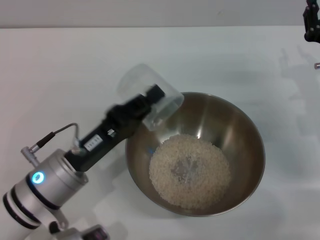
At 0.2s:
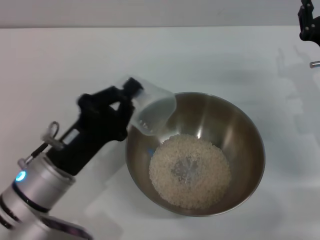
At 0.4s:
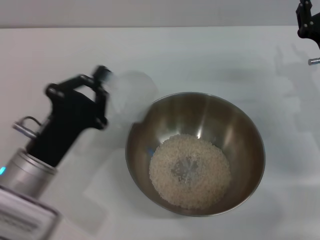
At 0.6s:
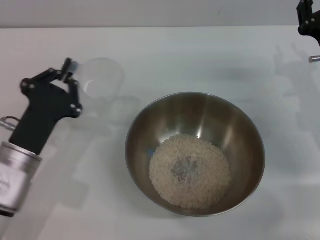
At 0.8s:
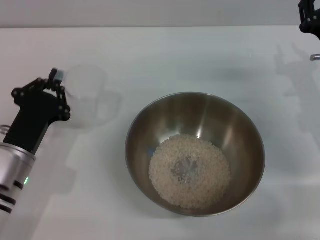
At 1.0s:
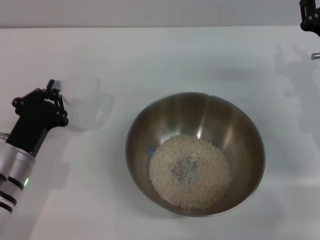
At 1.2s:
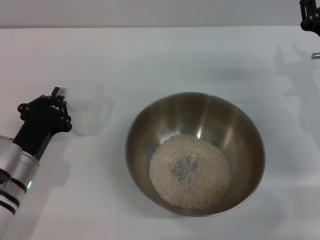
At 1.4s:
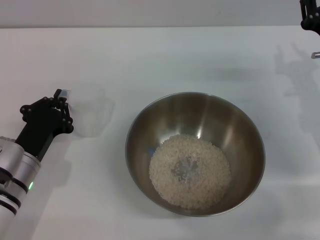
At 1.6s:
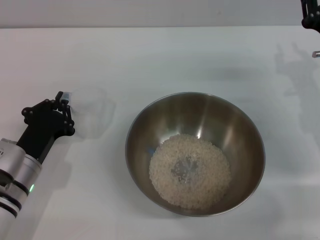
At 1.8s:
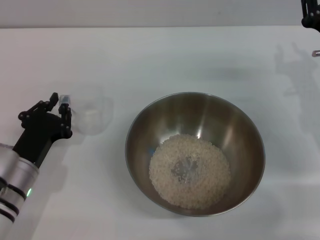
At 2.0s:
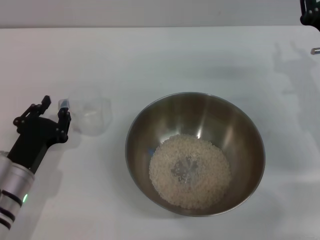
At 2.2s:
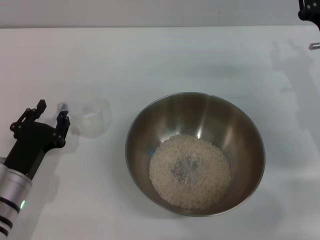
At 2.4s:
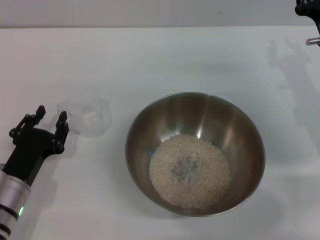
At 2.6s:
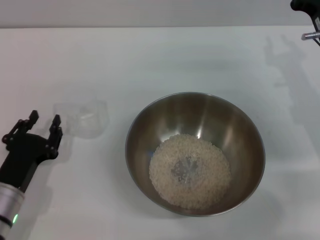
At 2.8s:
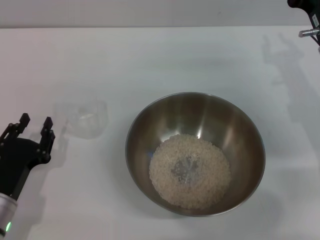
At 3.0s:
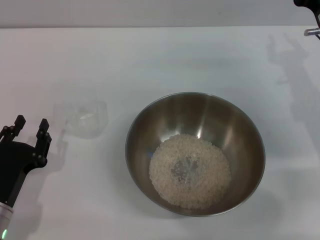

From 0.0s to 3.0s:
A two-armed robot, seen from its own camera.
Task of the whole recording: Place the bowl in the middle of the table with one hand and pour the rice from the grain cup into it with the other hand.
Step, from 0.0s to 2.6s: Place the cup on the table with the left gripper.
From 0.0s to 1.6s: The left gripper heads to the left and downward, covering approximately 10 cm.
From 1.6s to 3.0s: The left gripper travels backward by roughly 5 cm, and opens its fingers.
